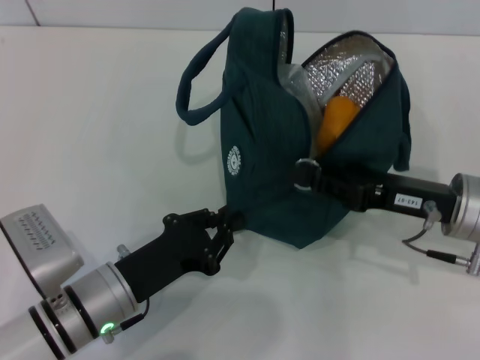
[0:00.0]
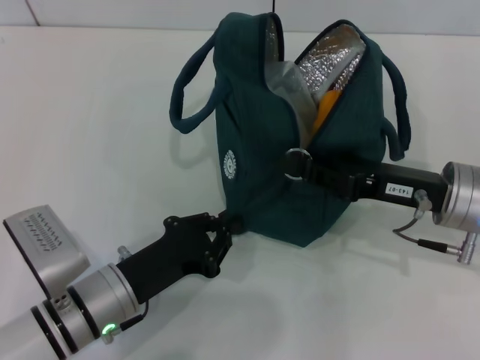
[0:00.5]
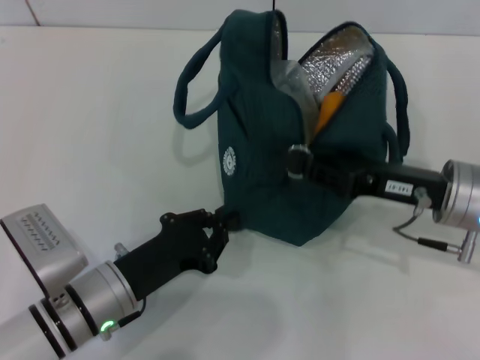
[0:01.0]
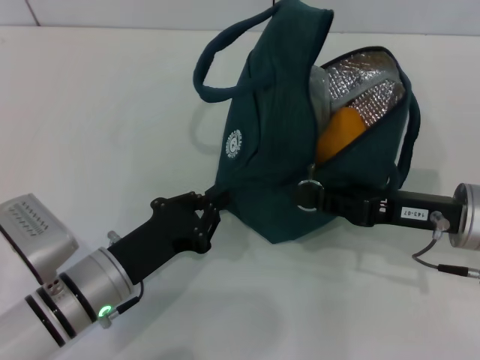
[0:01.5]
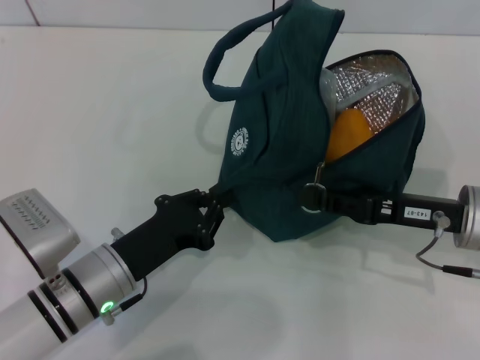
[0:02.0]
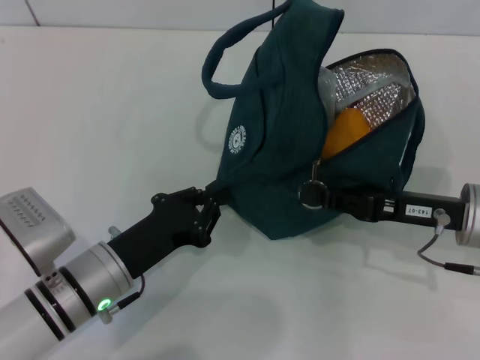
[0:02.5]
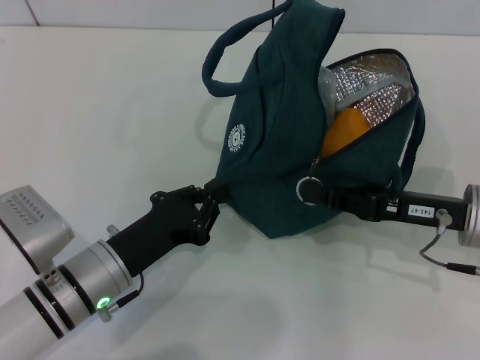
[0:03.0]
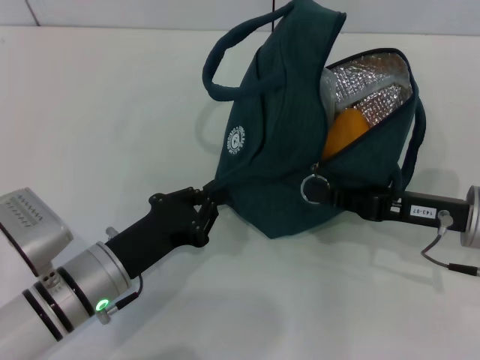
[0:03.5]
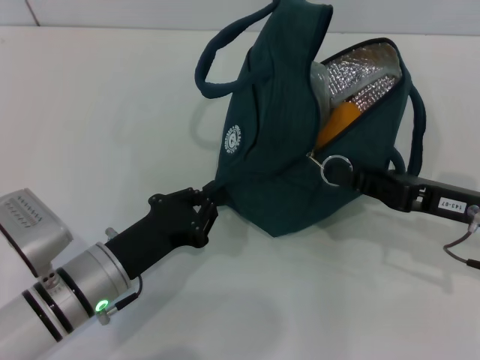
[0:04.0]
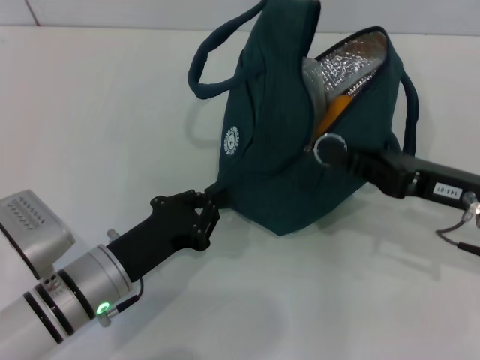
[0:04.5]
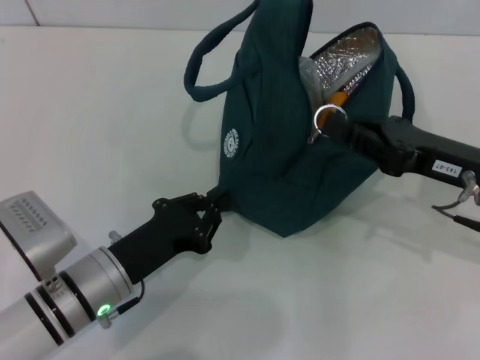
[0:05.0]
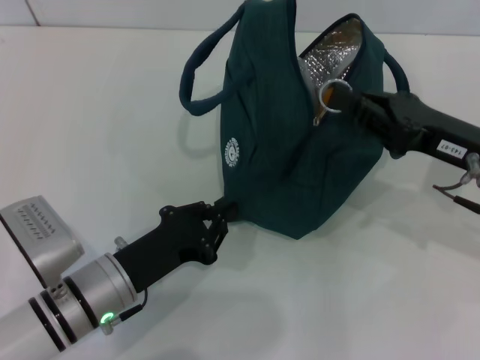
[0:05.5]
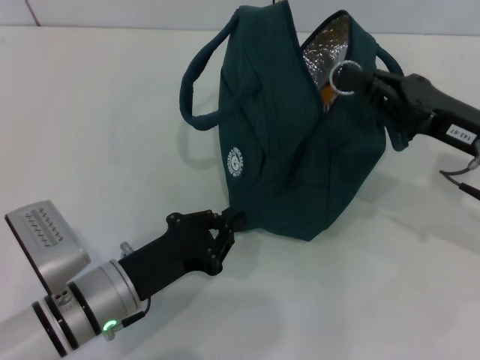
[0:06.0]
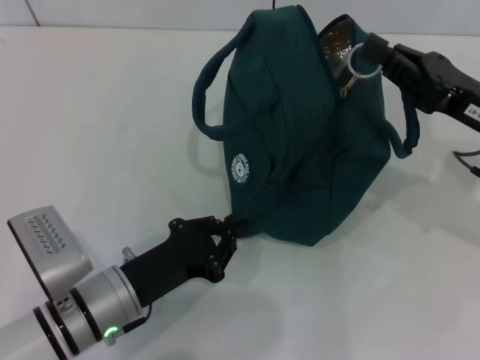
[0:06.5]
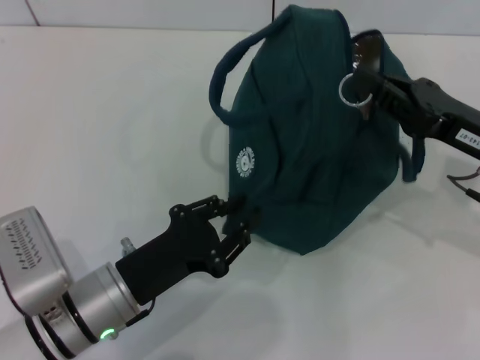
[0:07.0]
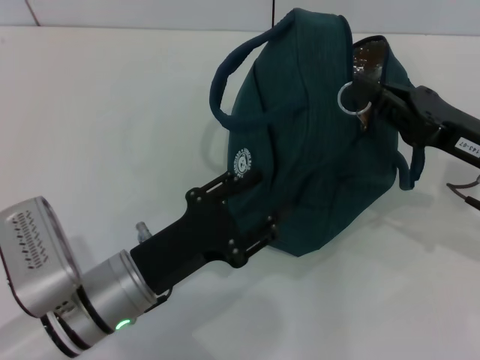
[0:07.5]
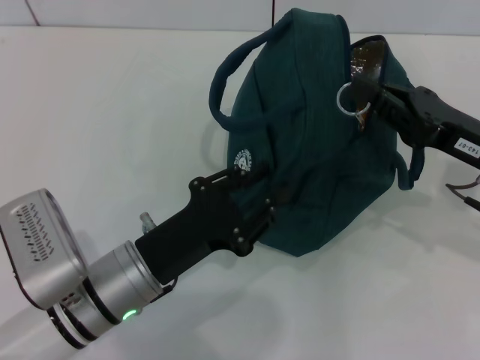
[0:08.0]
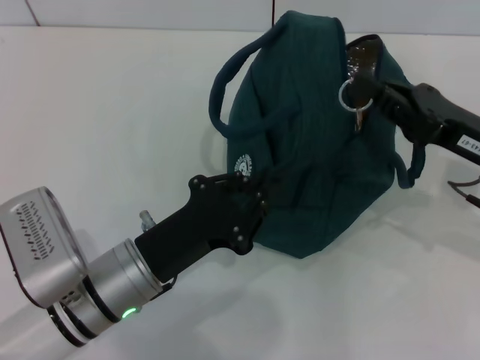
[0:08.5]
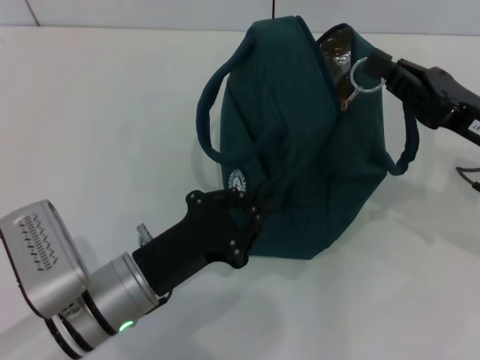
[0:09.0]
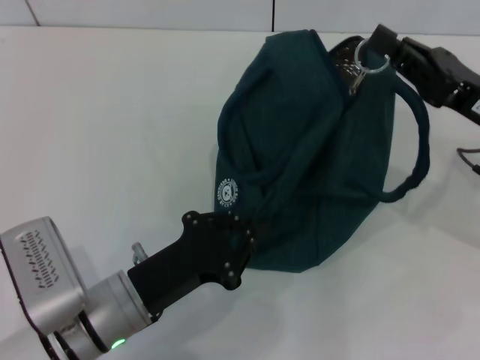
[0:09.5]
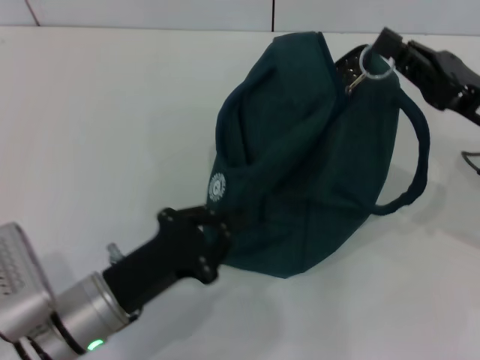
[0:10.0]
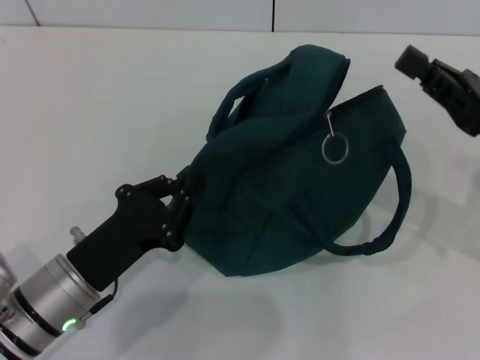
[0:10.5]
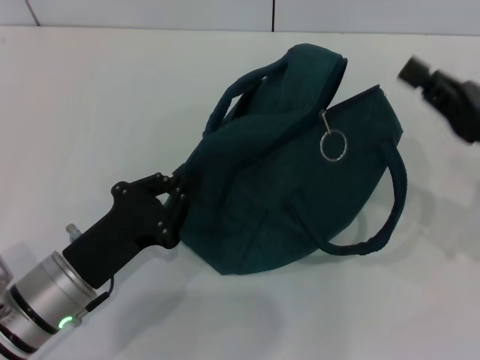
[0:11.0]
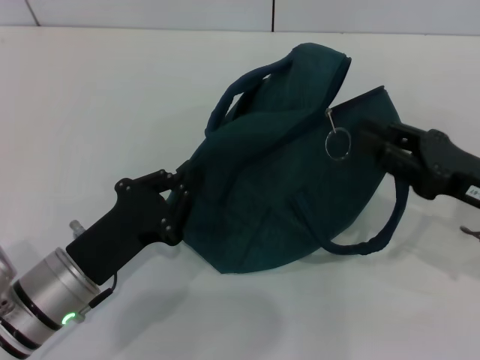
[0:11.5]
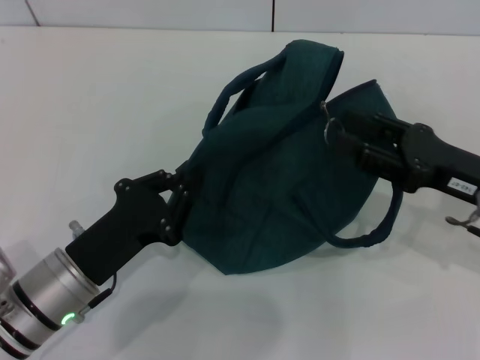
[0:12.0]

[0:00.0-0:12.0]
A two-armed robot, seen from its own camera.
0:02.0 to 0:04.0: The grippers move only a little.
0:06.0 to 0:08.0: The left gripper opens.
0:08.0 to 0:10.0: The left gripper closes.
0:10.0 to 0:12.0: The right gripper opens its fingers.

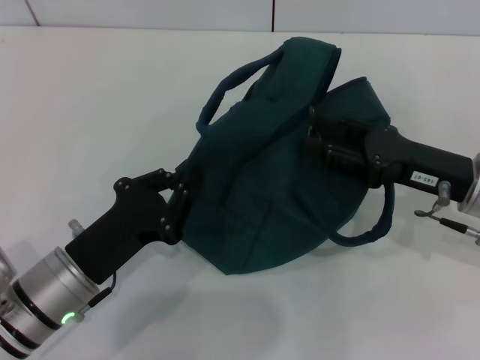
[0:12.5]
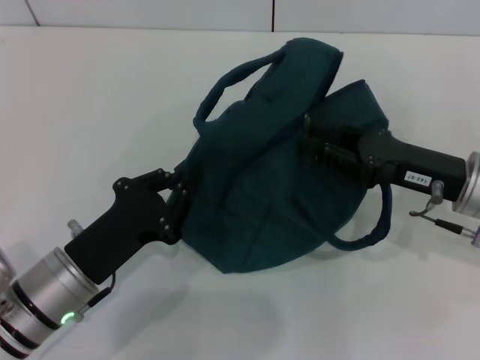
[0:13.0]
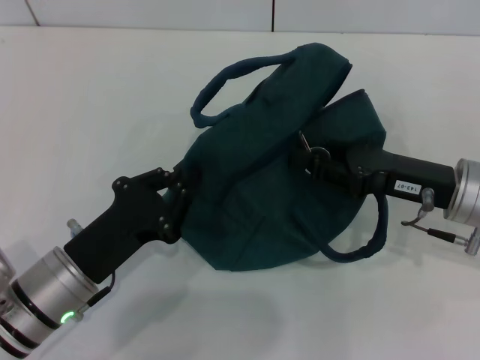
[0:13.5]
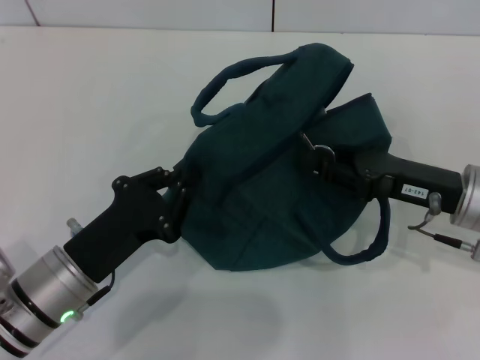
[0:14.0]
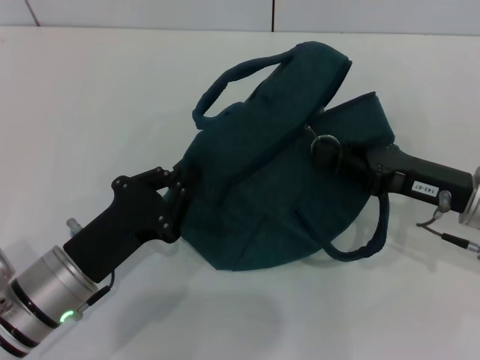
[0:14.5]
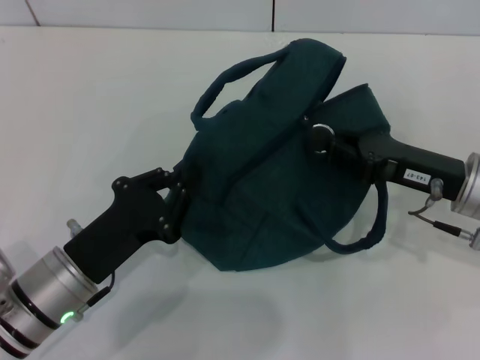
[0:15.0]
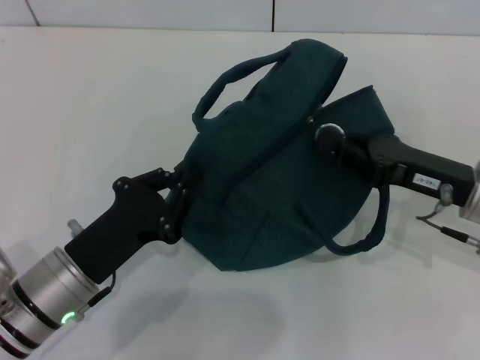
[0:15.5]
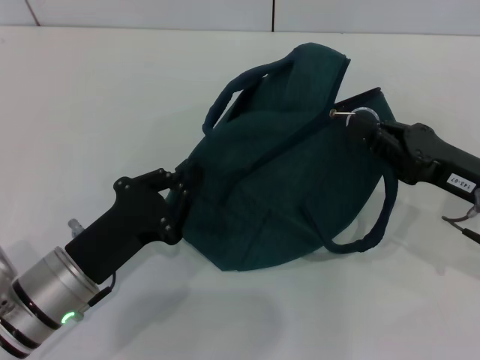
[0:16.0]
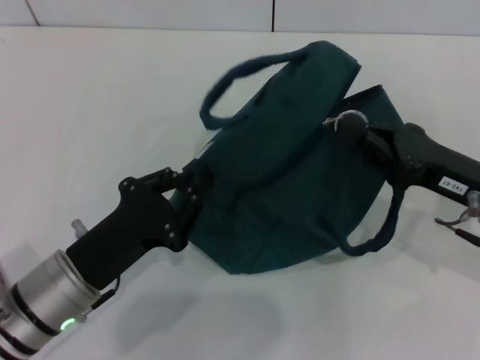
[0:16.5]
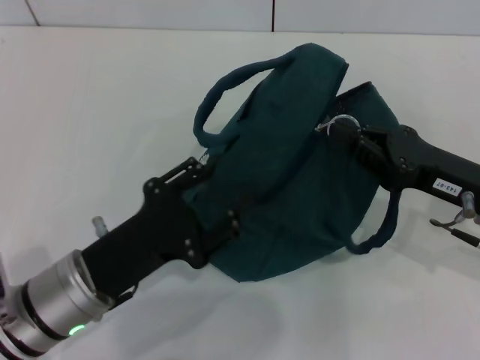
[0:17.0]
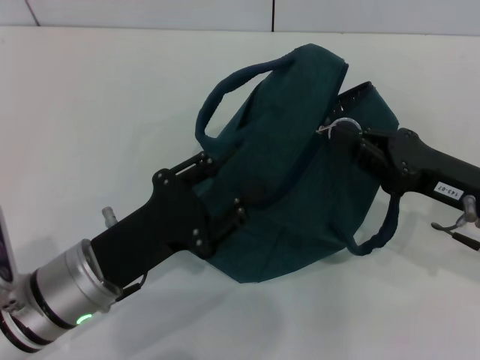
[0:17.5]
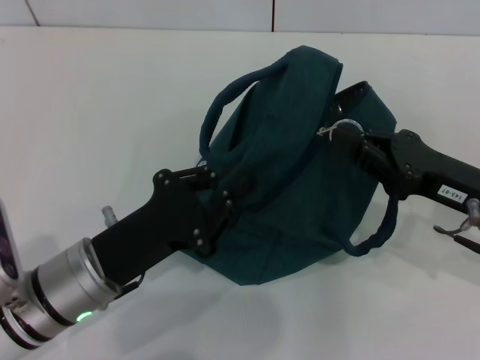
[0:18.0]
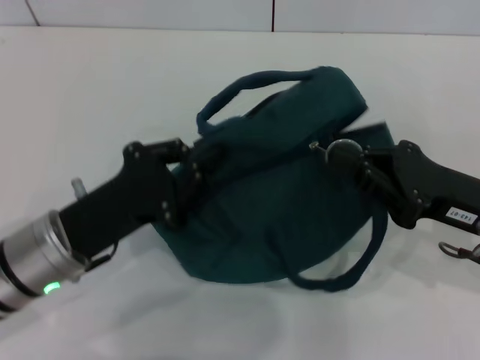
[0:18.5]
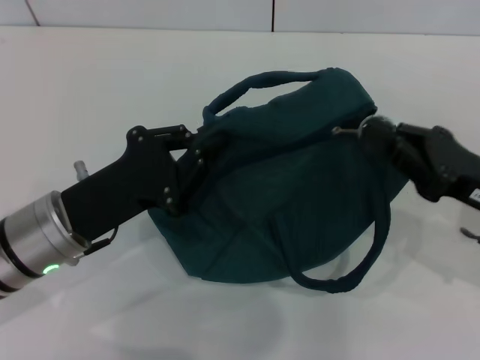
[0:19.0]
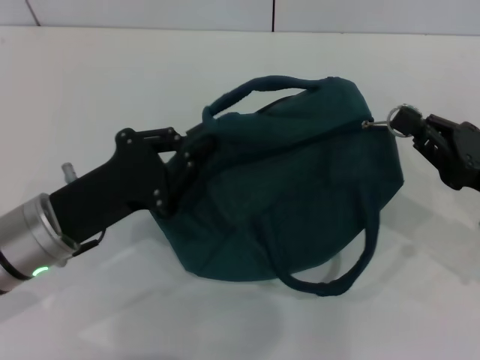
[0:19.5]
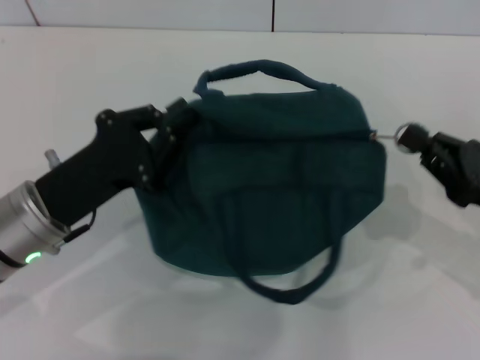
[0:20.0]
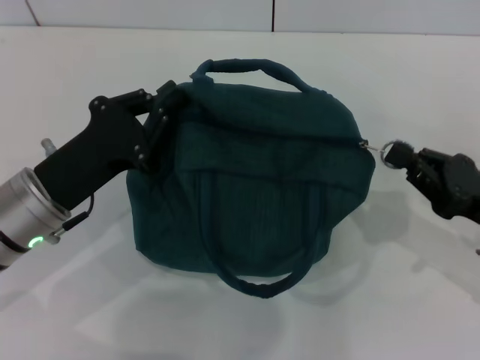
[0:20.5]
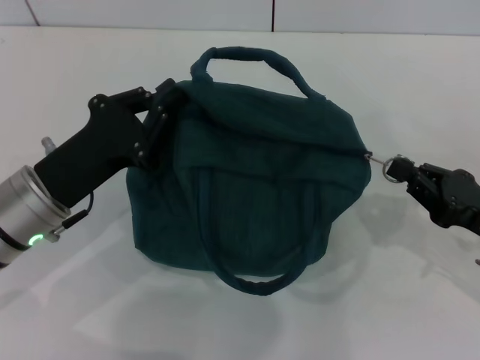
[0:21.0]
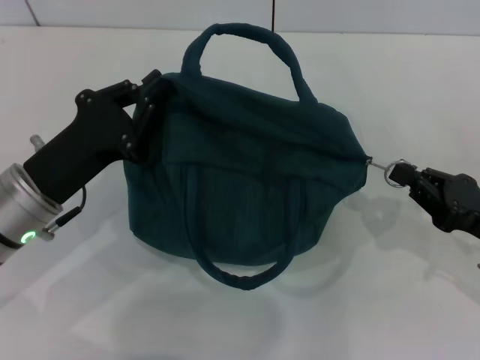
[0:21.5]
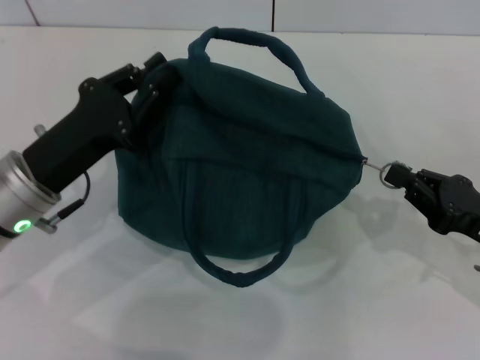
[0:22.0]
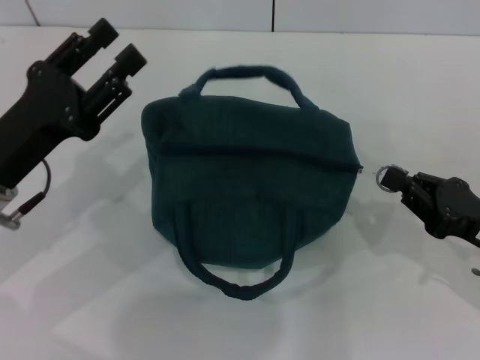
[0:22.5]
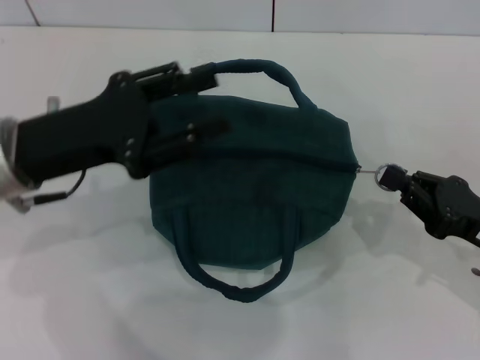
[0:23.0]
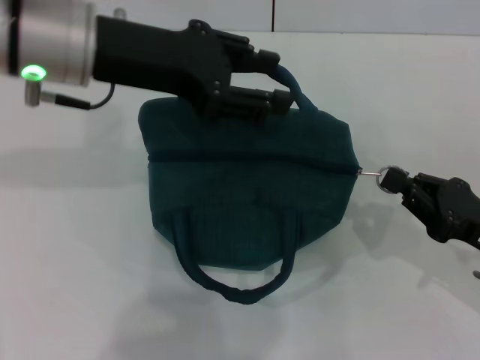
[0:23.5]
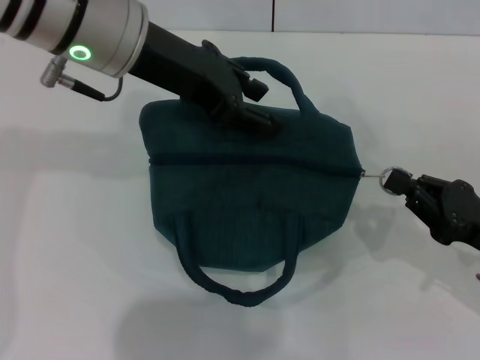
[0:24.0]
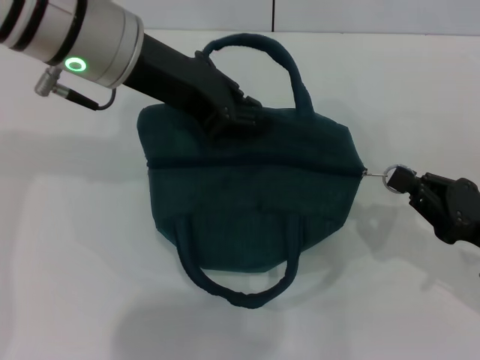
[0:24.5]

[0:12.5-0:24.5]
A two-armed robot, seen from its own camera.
0:12.5 to 0:14.5: The right gripper closes its fingers.
0:14.5 to 0:16.5: The grippers make only small movements.
0:16.5 to 0:18.5: The left gripper opens and closes again.
0:18.5 to 0:20.5: The right gripper ends up approximately 5 cm from where it was.
0:20.5 to 0:22.5: The left gripper opens up.
0:22.5 to 0:24.5: The left gripper is displaced upward, to the right and forward by approximately 20 cm.

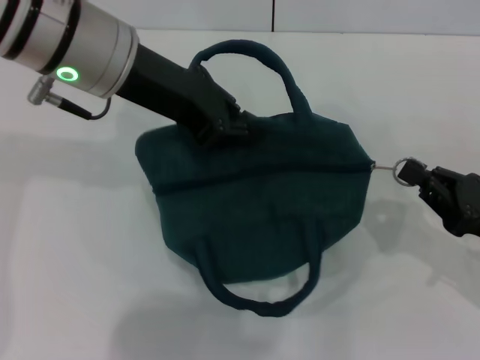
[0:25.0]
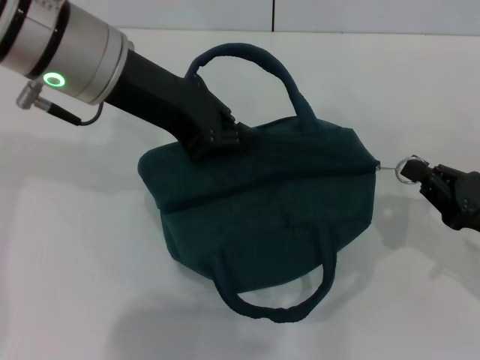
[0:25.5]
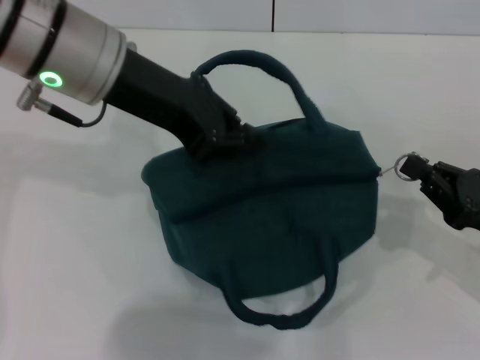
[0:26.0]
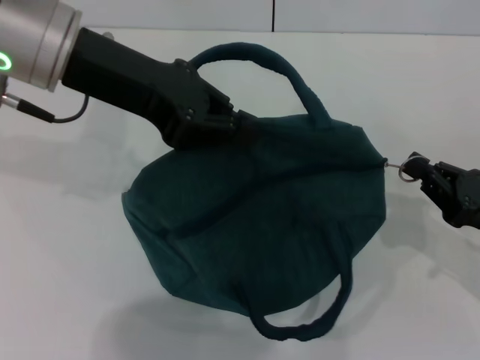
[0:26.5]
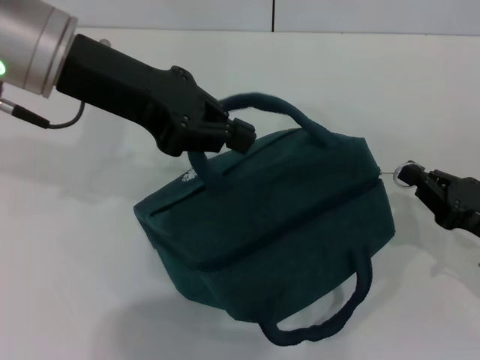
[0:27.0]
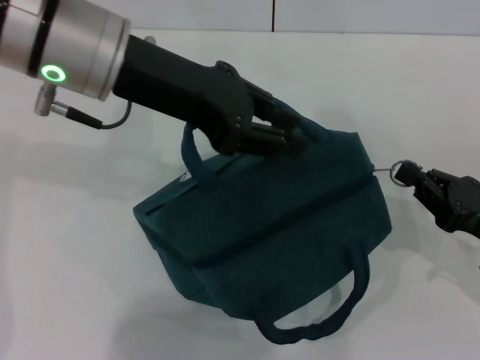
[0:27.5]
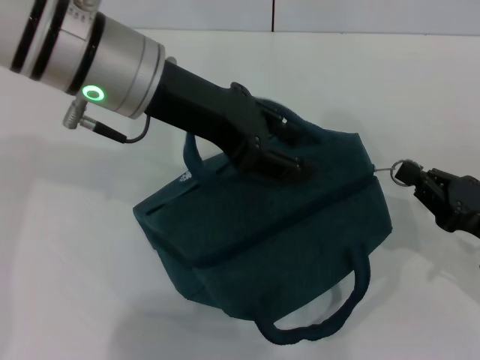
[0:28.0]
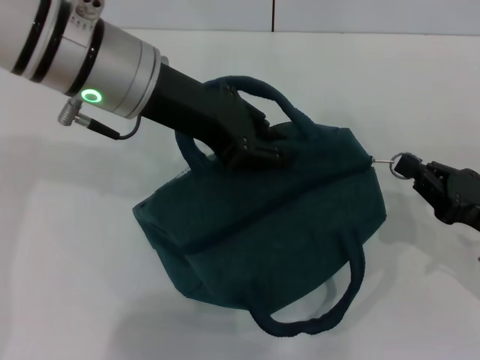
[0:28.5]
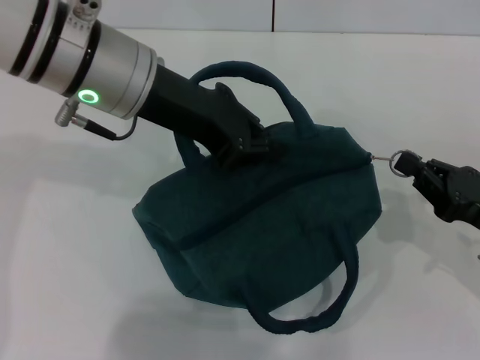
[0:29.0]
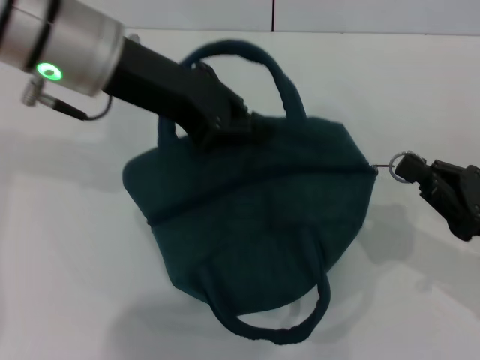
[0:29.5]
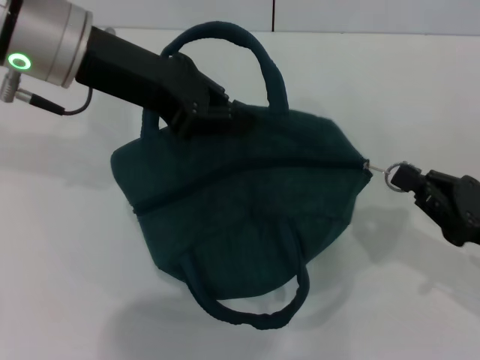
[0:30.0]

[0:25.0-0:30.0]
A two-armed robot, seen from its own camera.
0:25.0 to 0:27.5: The grippers make only small movements.
